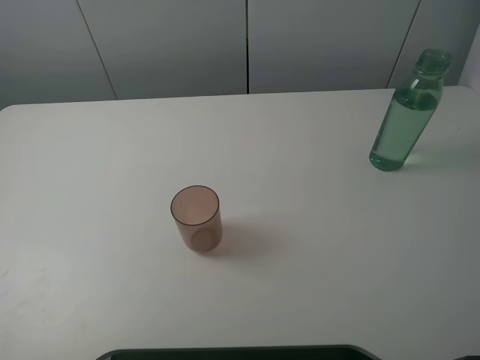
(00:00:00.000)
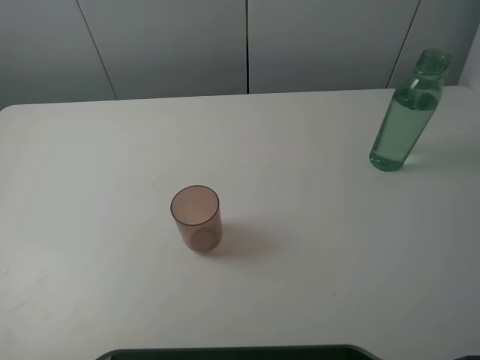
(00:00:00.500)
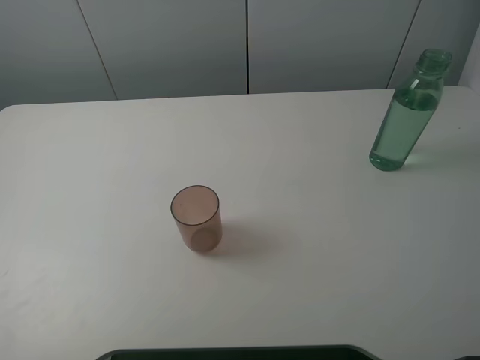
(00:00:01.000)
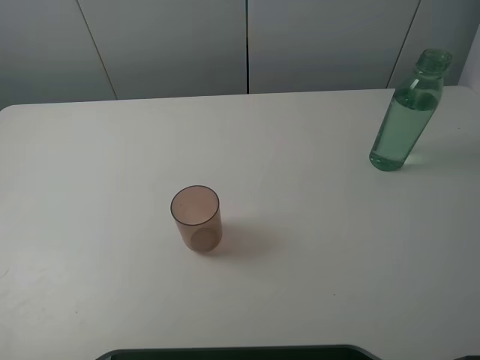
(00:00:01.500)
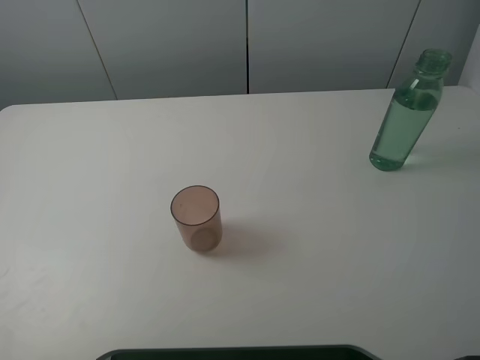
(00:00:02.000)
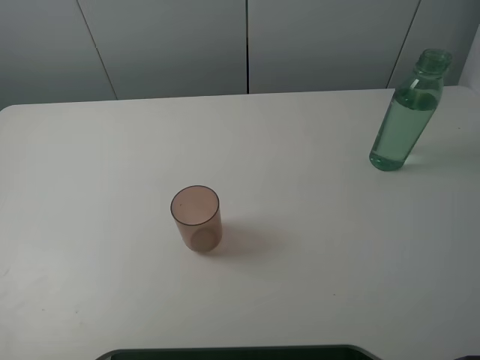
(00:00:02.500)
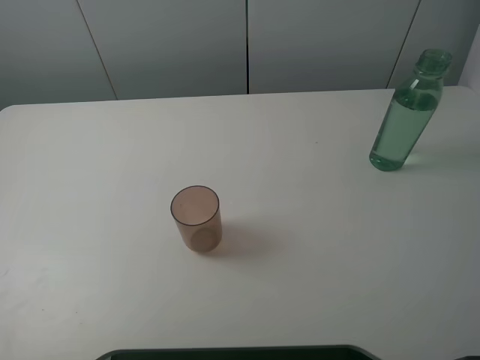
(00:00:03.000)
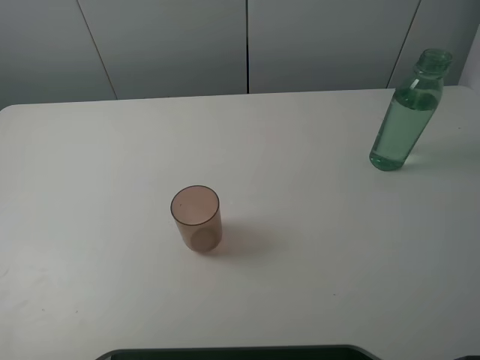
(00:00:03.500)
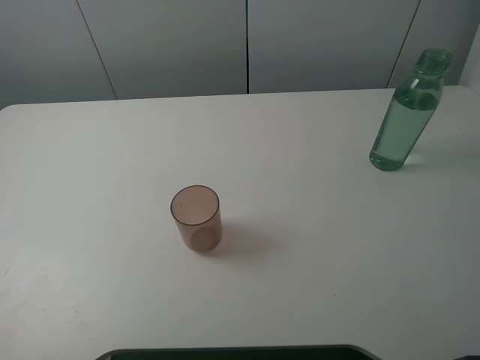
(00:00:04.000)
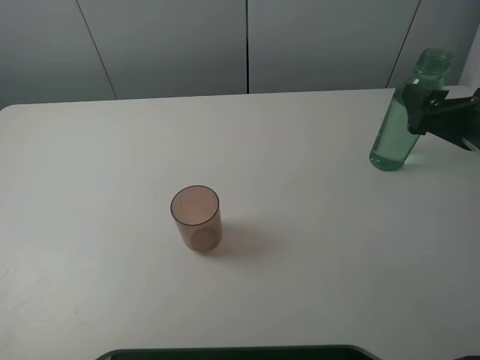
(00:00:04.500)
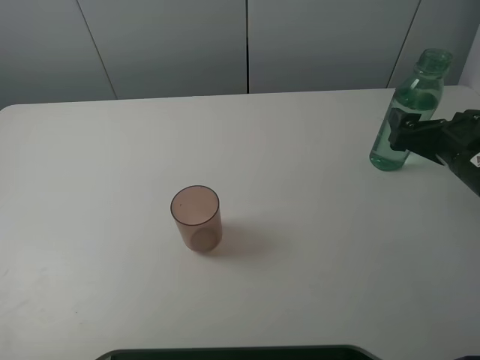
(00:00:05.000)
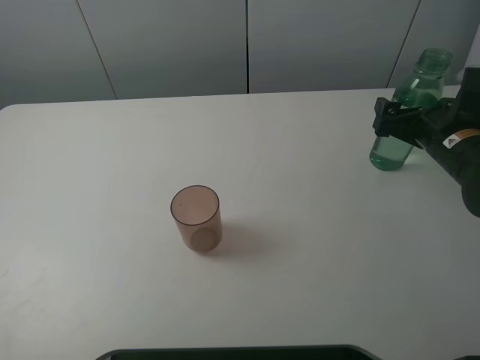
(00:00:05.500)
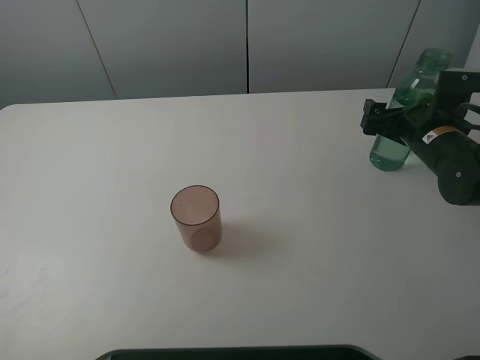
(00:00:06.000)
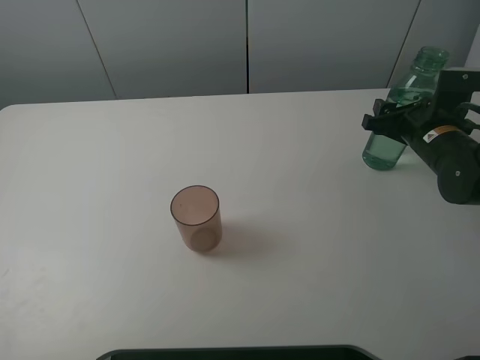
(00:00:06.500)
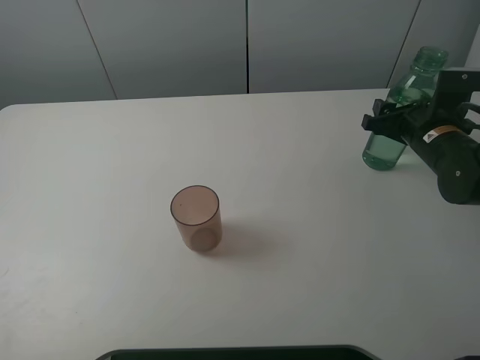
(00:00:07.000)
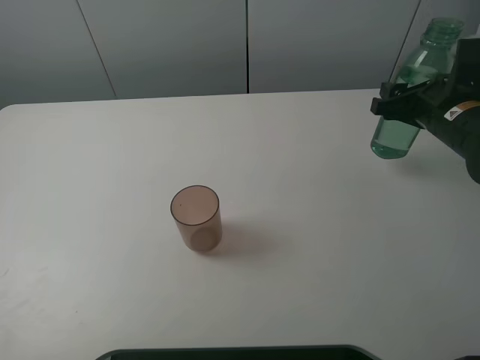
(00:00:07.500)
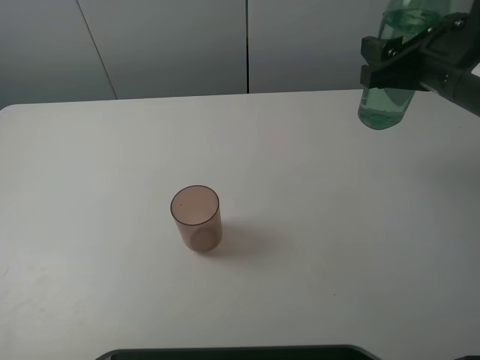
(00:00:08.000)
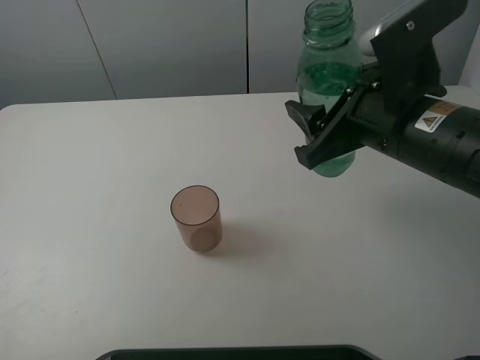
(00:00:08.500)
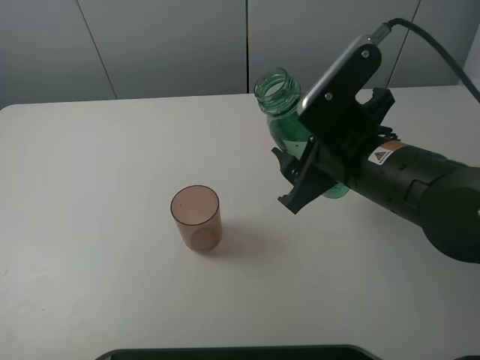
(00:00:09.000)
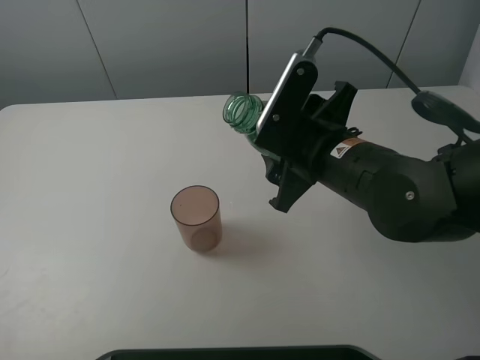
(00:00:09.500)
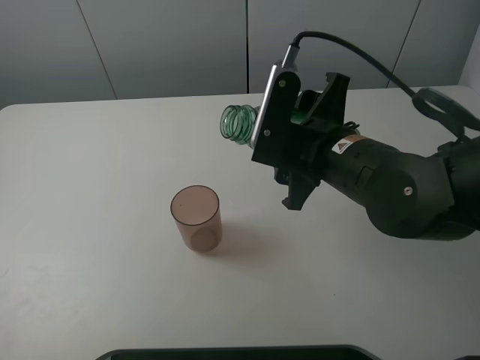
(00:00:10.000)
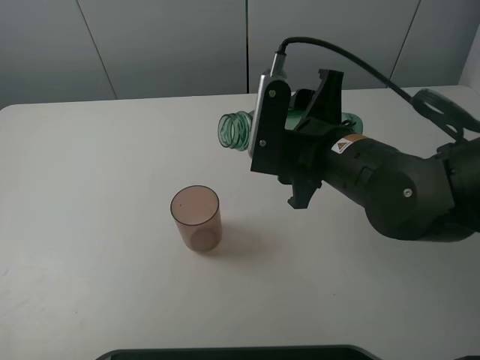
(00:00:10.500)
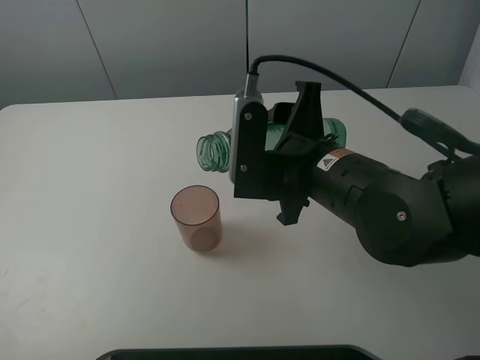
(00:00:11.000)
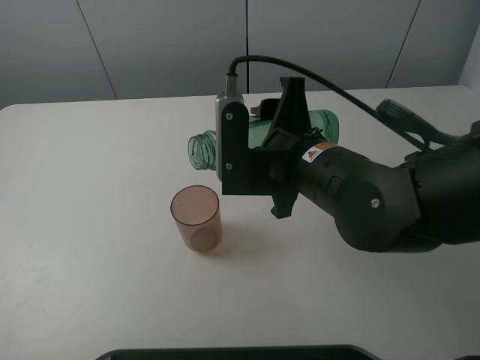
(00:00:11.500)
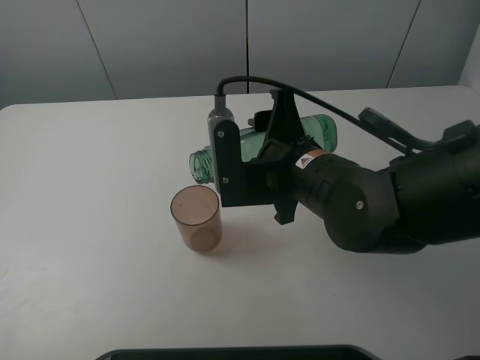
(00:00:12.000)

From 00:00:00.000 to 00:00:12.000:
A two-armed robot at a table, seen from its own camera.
Task of the whole recording: pick up the bottle filled with water and pour it into the pink cup.
Step, from 00:00:00.000 to 00:00:06.500: Grasp the green bottle with the right gripper.
From 00:00:00.000 to 00:00:02.000: Both grippers stay put.
From 00:00:04.000 to 00:00:06.000: The right gripper shifts some 20 cm downward and forward.
From 00:00:06.000 to 00:00:08.000: The right gripper heads upward and backward, covering some 15 cm, and closes.
From 00:00:08.000 to 00:00:10.000: The right gripper shifts roughly 15 cm to the left and downward.

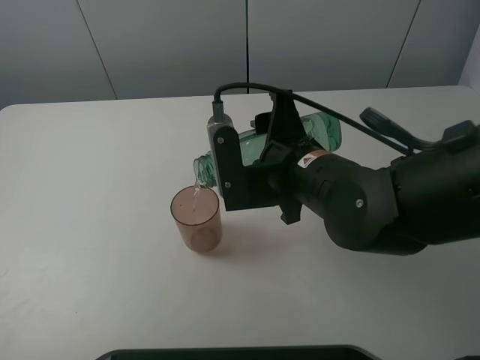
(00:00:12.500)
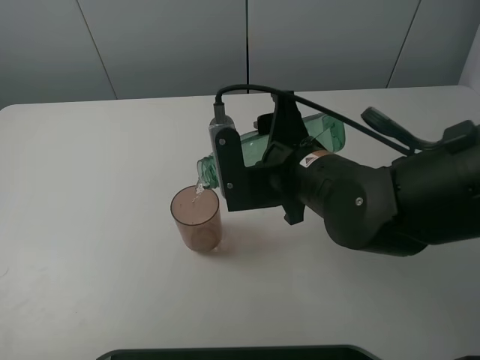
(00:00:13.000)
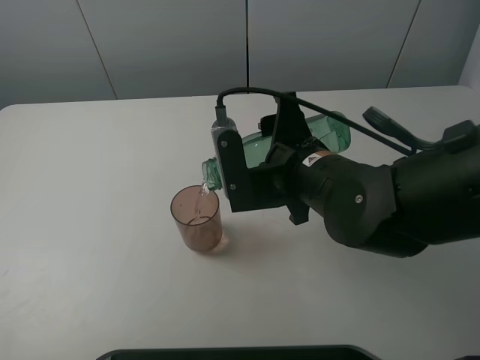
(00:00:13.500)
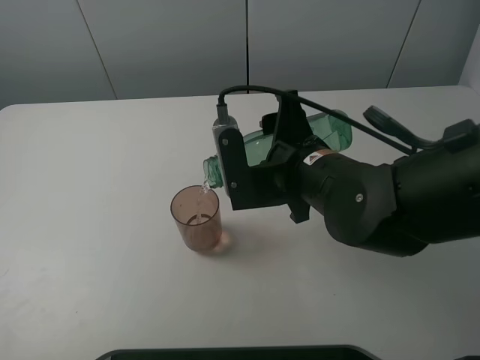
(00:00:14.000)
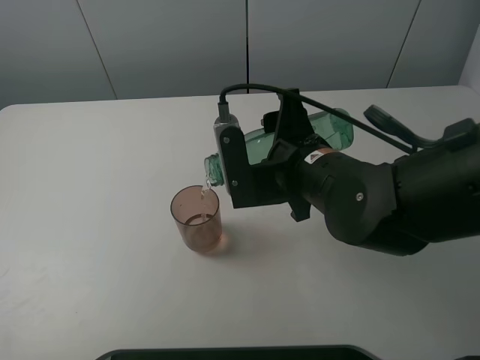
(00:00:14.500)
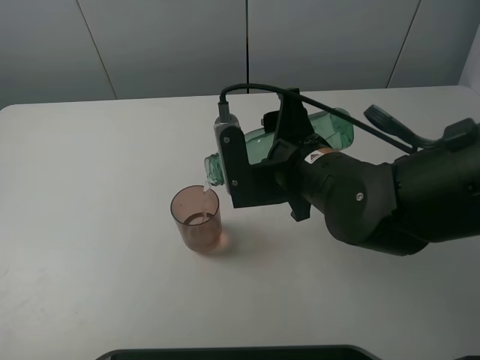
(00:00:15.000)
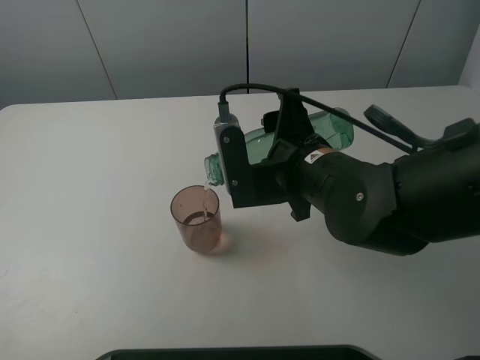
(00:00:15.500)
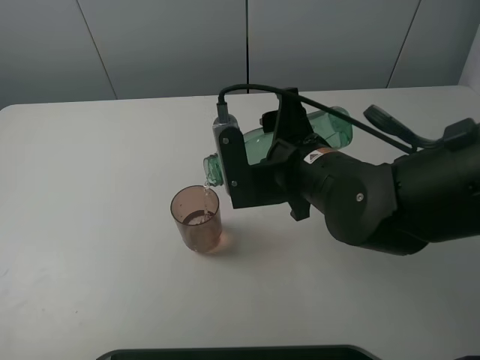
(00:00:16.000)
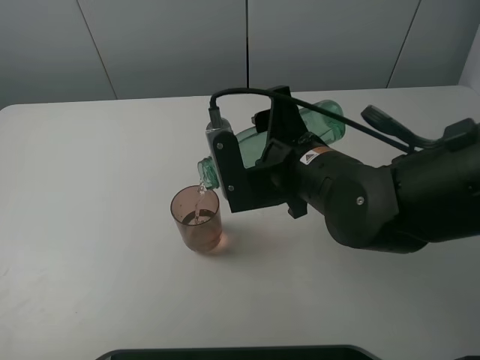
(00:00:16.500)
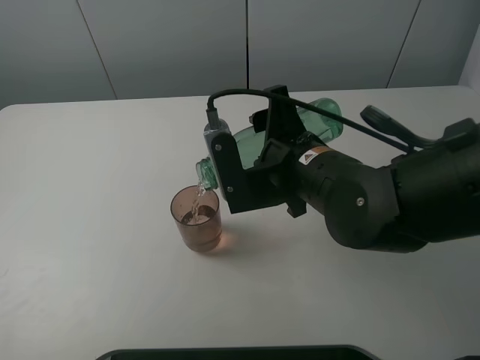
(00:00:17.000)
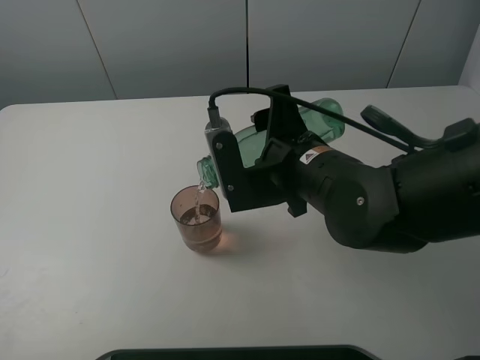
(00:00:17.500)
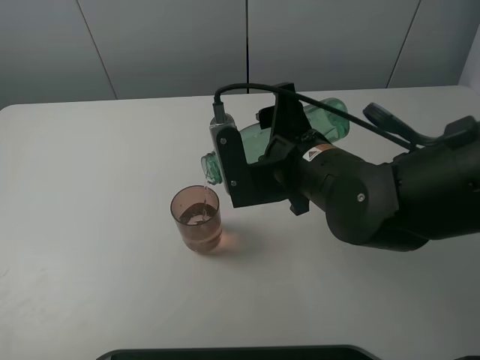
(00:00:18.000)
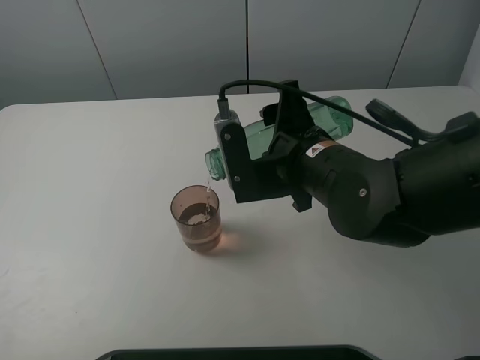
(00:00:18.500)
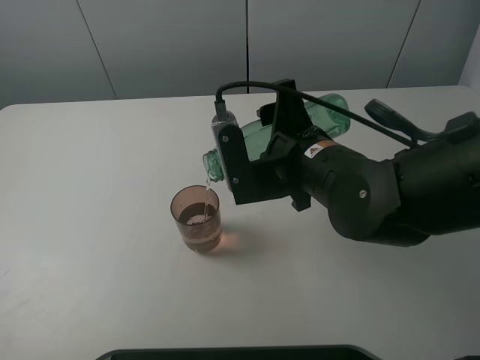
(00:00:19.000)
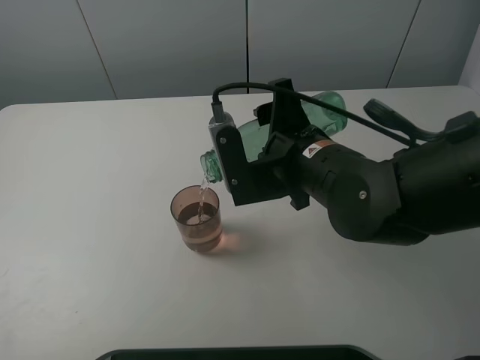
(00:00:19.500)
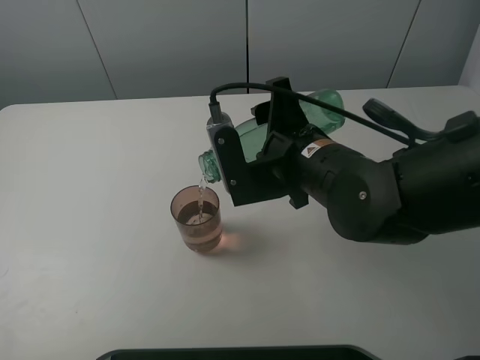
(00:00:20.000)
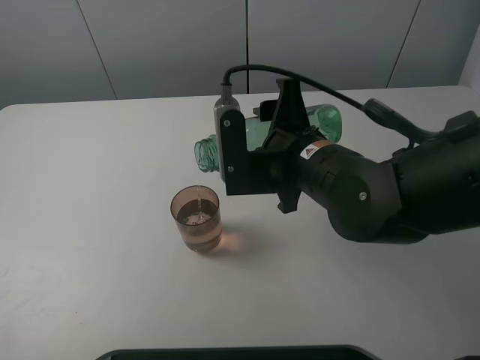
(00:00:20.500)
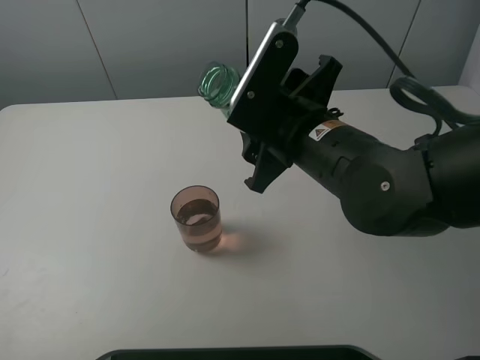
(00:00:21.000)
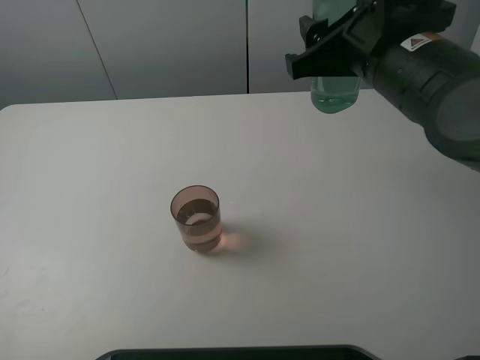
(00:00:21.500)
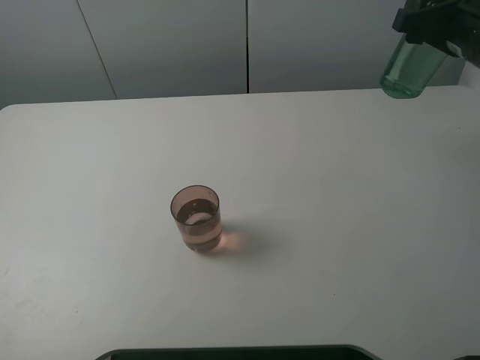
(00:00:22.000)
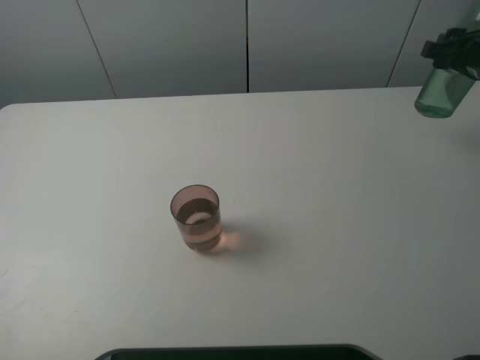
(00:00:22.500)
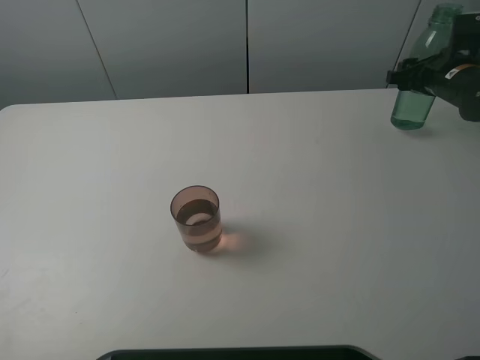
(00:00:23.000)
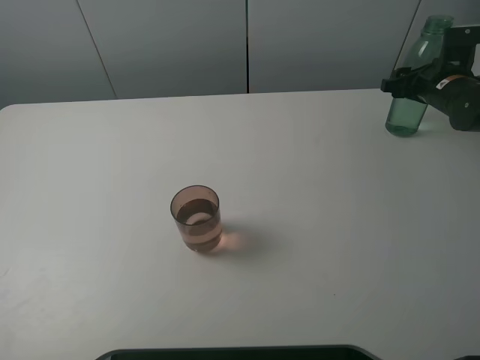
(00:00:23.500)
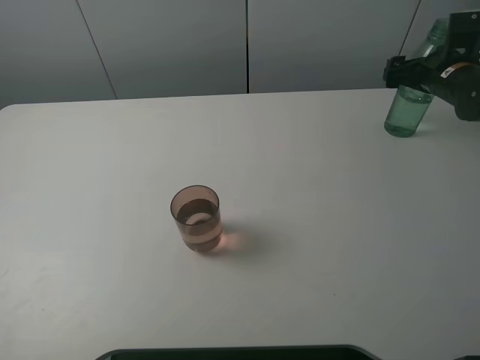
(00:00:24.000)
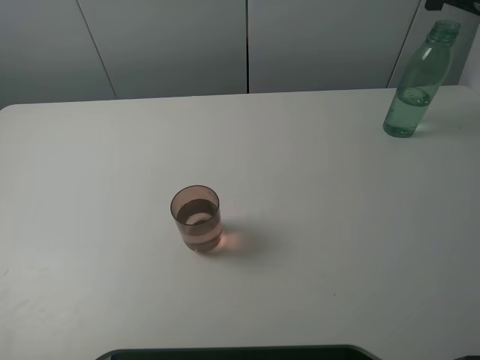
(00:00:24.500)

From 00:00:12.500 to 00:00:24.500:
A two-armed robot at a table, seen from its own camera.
Task of the whole recording: pick up the bottle filled with water and pour it into the pink cup.
Step, from 00:00:12.500 to 00:00:20.500: Pour water from green bottle to pink cup with the right gripper.
Step, from 00:00:21.000 to 00:00:24.000: Place the green bottle with the right gripper.
From 00:00:12.500 to 00:00:14.500: Neither gripper changes place.
From 00:00:14.500 to 00:00:16.500: The grippers move only a little.
From 00:00:16.500 to 00:00:18.500: Neither gripper changes place.
From 00:00:18.500 to 00:00:20.500: There are only small adjustments of the grippers.
From 00:00:20.500 to 00:00:22.500: The right gripper travels to the right and forward by approximately 30 cm.
From 00:00:22.500 to 00:00:24.500: The right gripper heads upward, covering some 10 cm, and opens.

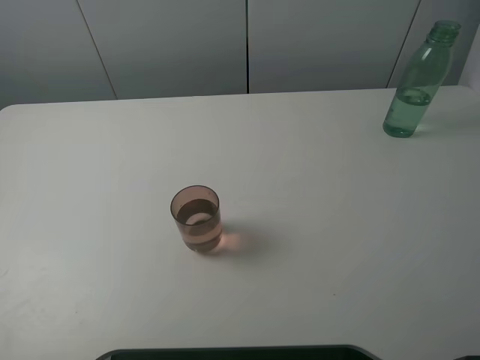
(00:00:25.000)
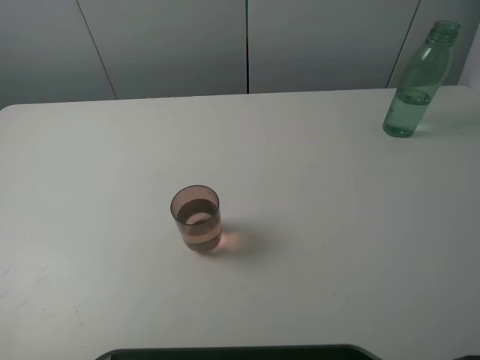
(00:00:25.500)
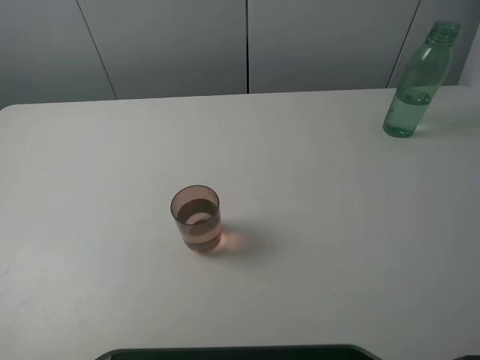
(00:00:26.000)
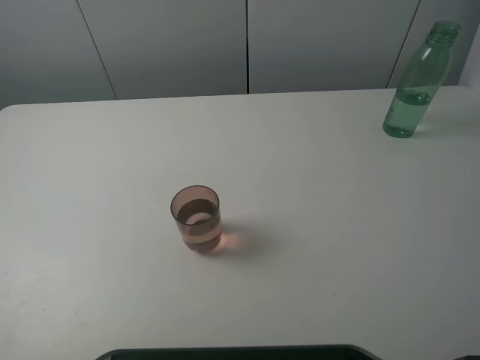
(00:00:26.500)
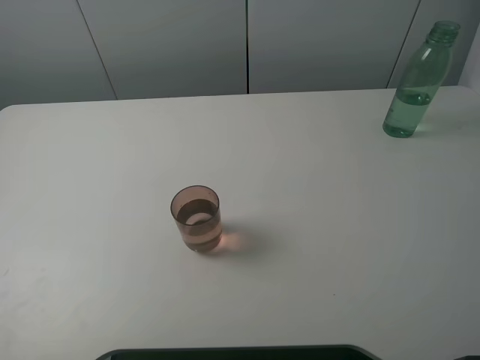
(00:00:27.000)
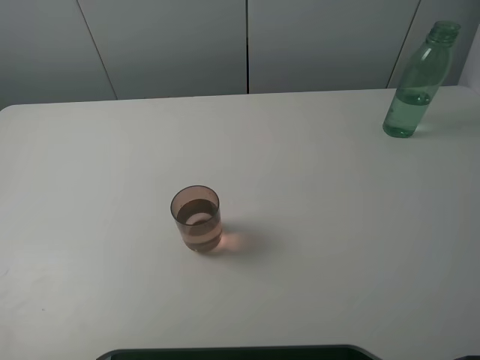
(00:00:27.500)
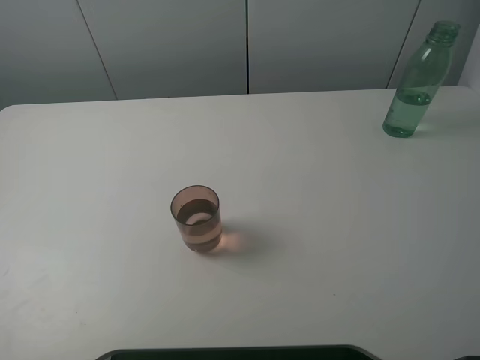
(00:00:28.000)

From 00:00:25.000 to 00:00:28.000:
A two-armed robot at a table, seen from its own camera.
Task of the whole recording: pick up the bottle filled with water and pour it into the pink cup.
From 00:00:26.500 to 00:00:28.000: Both grippers stay put.
